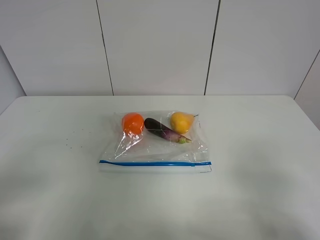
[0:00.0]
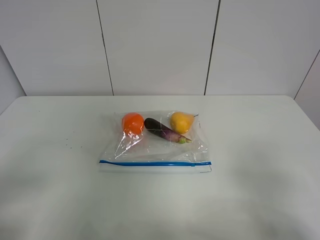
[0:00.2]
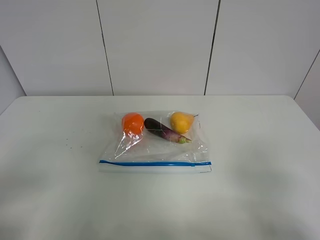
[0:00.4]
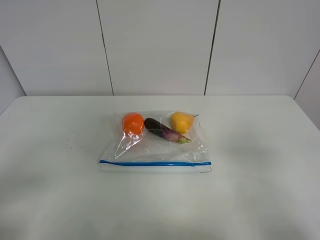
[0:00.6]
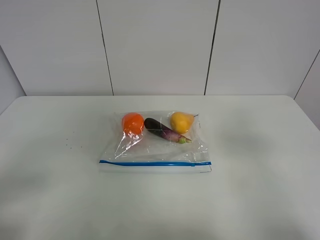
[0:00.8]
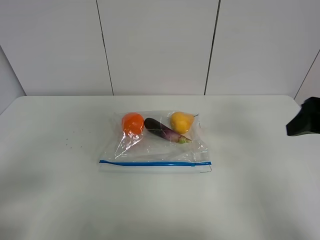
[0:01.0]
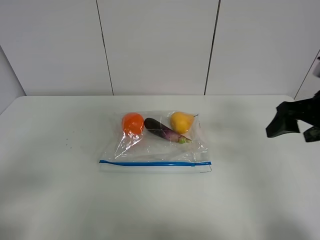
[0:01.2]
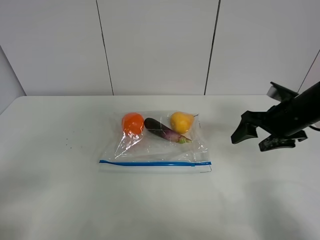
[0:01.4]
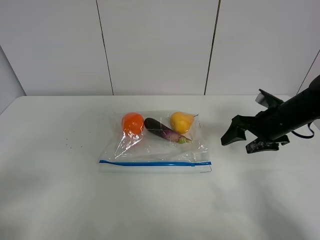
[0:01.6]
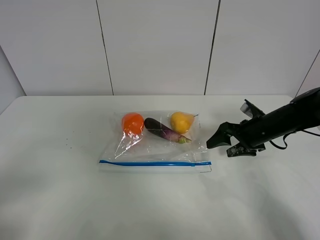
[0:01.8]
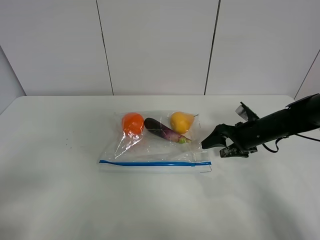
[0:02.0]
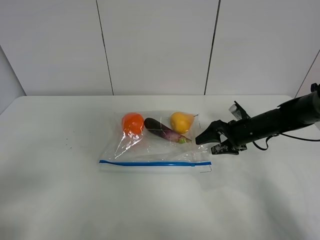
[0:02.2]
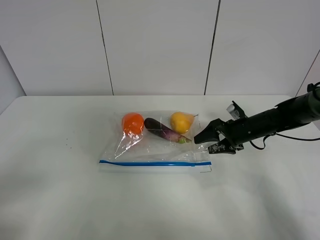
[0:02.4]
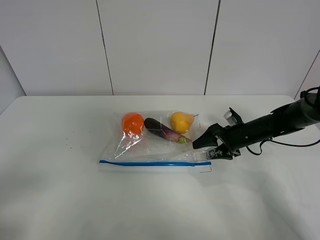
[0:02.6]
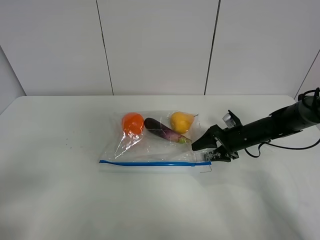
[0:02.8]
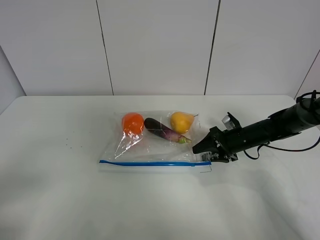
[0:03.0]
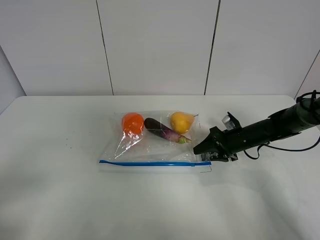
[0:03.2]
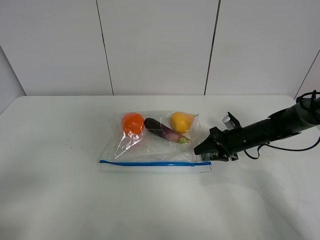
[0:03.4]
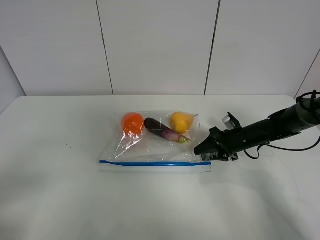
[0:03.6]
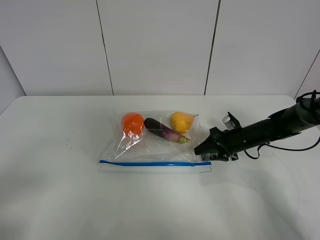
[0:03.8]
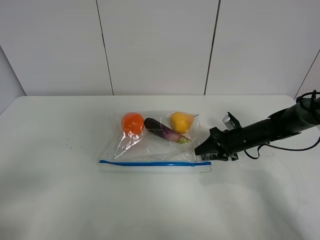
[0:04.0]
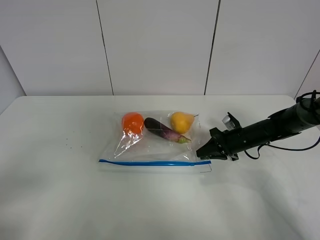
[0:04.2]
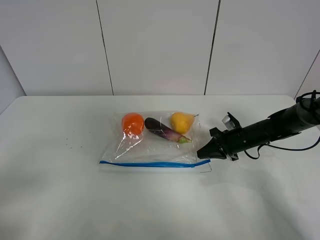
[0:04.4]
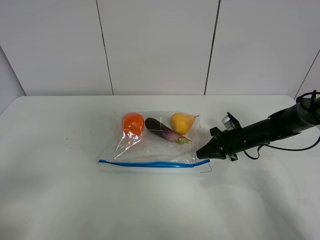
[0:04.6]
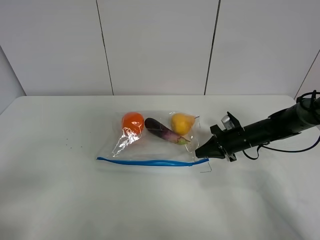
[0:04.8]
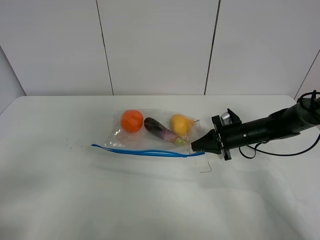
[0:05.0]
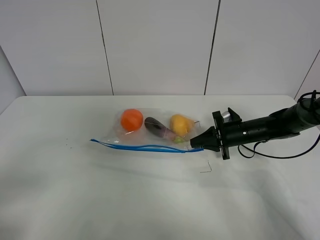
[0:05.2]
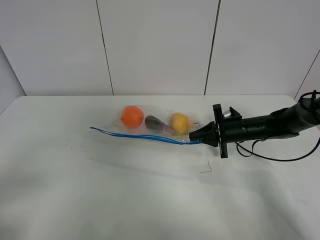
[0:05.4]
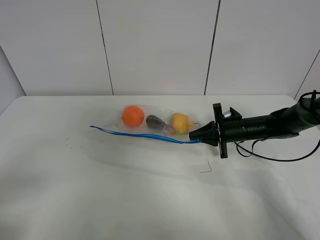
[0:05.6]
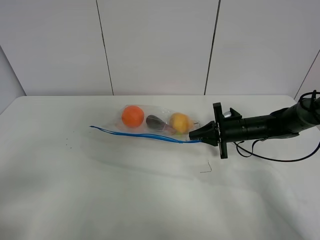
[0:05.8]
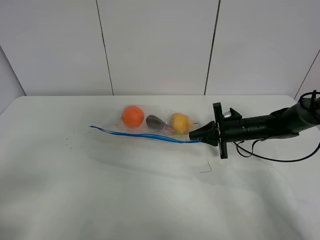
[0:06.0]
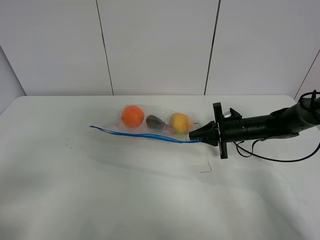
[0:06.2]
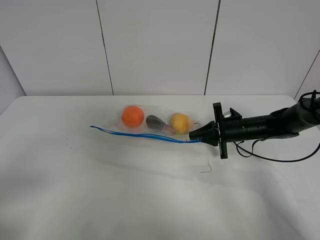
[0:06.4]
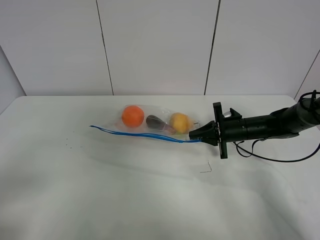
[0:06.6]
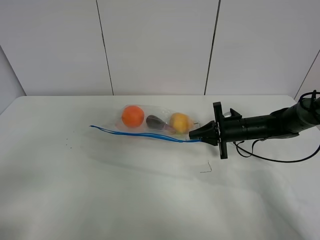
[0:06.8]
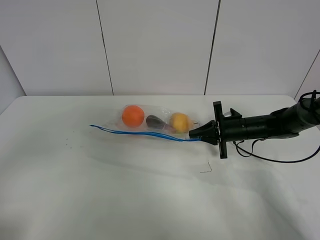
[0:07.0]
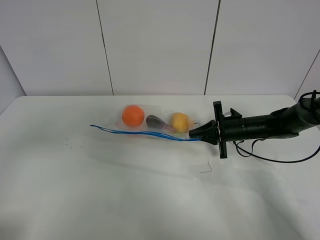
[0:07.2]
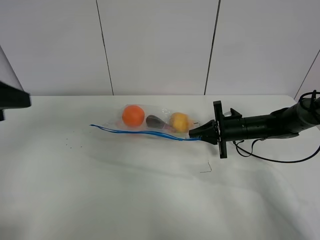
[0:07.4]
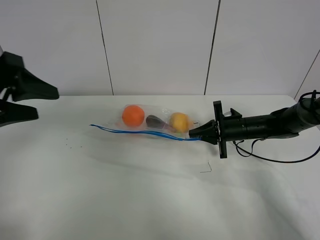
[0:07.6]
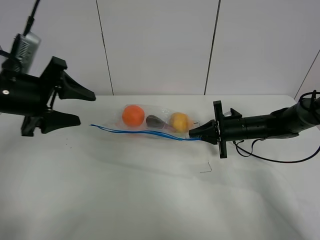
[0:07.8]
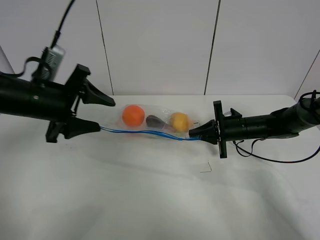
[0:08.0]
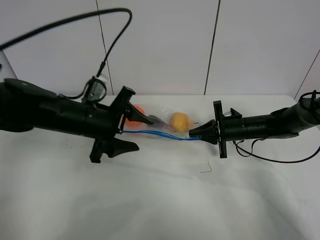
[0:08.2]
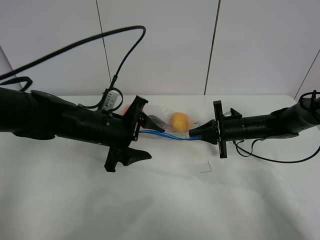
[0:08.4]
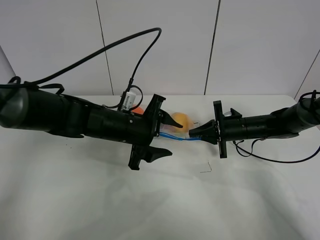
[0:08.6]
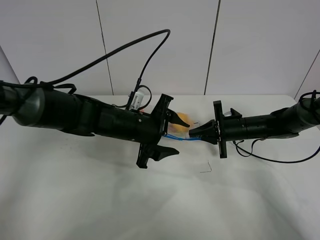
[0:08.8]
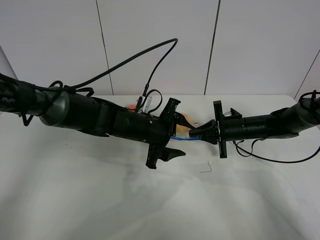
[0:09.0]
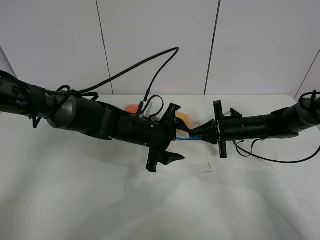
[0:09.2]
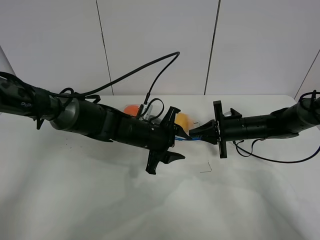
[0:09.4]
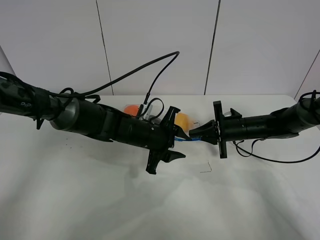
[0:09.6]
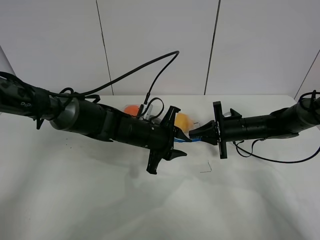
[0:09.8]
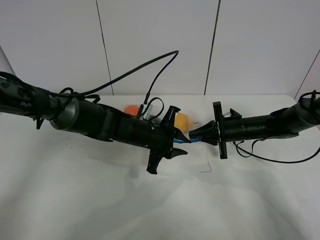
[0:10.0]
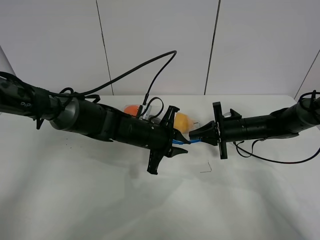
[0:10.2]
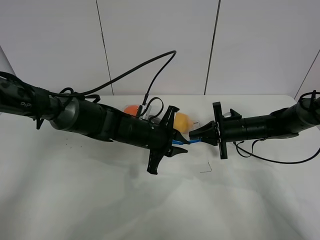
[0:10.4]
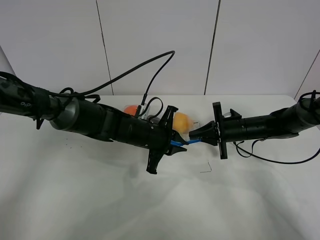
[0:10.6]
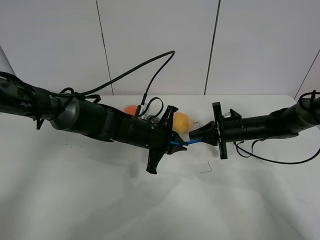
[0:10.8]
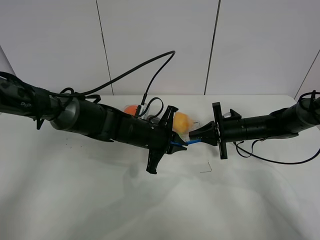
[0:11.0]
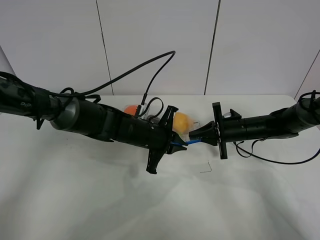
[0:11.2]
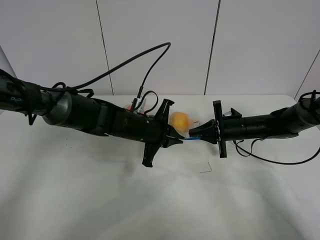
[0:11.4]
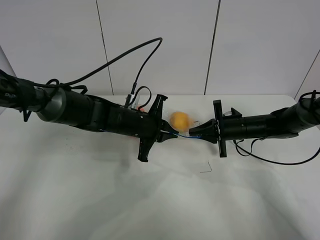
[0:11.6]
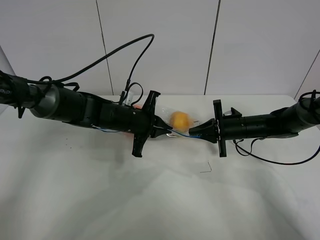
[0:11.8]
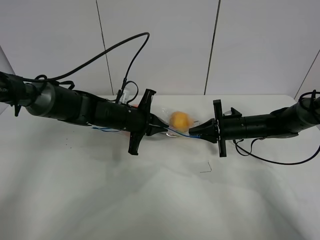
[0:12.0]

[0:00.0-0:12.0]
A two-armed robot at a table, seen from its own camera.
Step, 0:00.0 to 0:04.4: Grasp the fruit bag with right gripper.
Step, 0:04.6 to 0:05.6: Lift the fruit bag with your right gripper.
0:00.0 to 0:01.6: The right gripper heads forward, covering some 30 cm.
0:01.6 to 0:03.0: The right gripper heads downward, covering about 10 cm.
0:03.0 to 0:04.4: The right gripper closes.
0:06.0 to 0:07.6: The left gripper shifts about 20 cm forward.
0:07.6 to 0:09.0: The left gripper is displaced to the right, downward and forward by some 30 cm.
0:09.0 to 0:10.4: The left gripper closes.
0:10.4 to 0:12.0: The left gripper goes about 5 cm to the left.

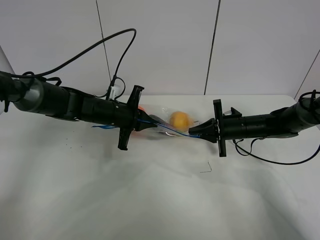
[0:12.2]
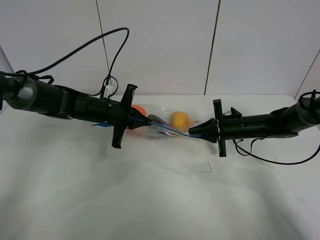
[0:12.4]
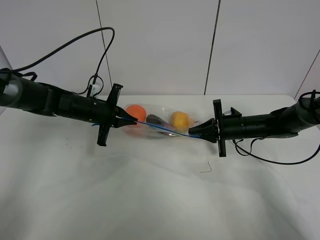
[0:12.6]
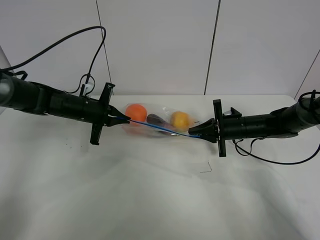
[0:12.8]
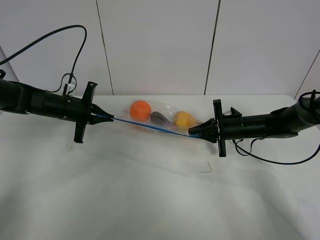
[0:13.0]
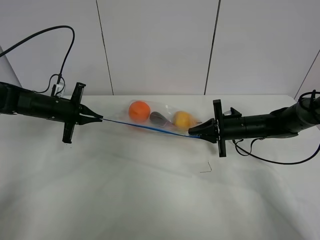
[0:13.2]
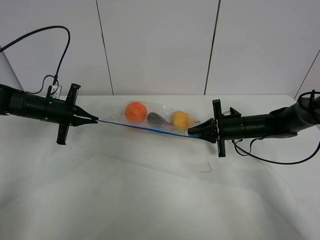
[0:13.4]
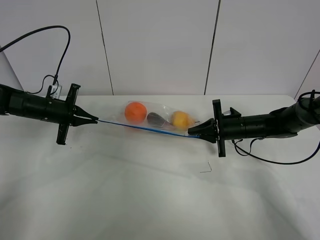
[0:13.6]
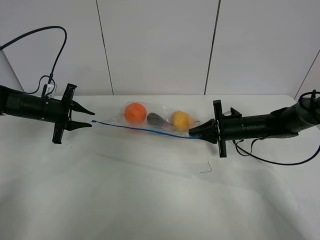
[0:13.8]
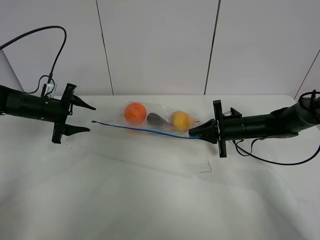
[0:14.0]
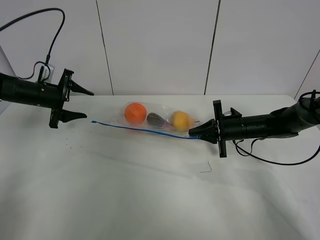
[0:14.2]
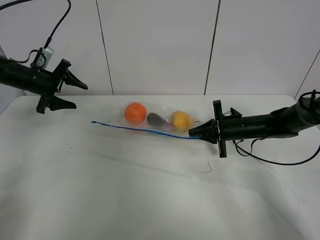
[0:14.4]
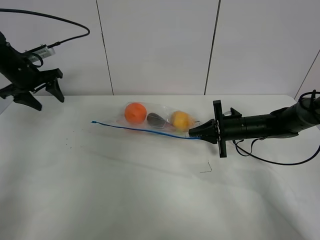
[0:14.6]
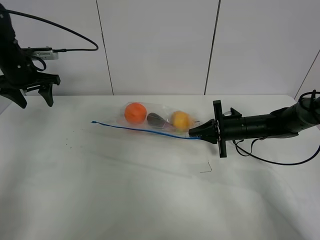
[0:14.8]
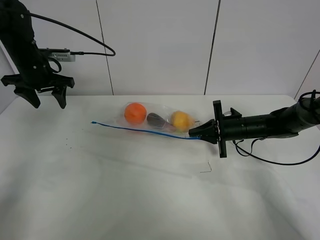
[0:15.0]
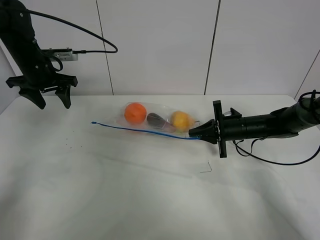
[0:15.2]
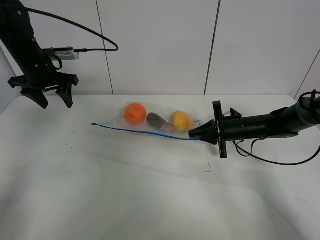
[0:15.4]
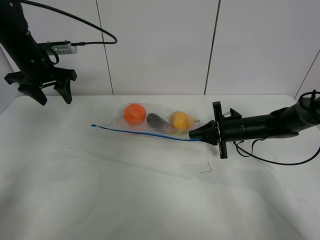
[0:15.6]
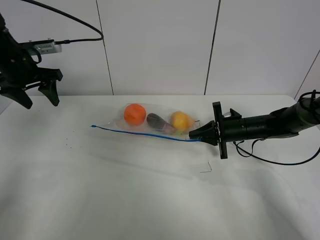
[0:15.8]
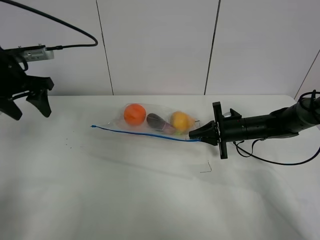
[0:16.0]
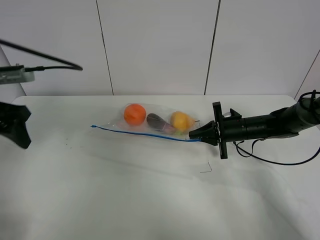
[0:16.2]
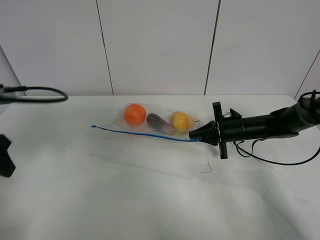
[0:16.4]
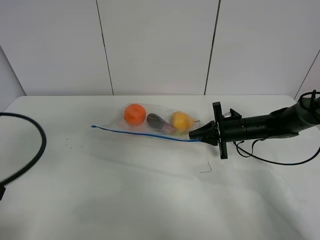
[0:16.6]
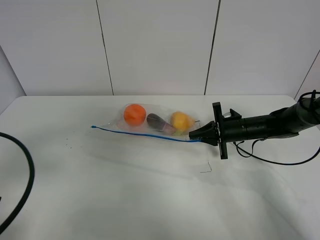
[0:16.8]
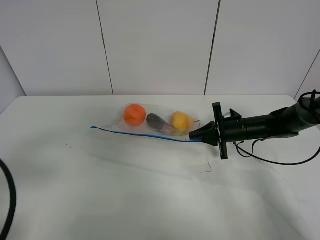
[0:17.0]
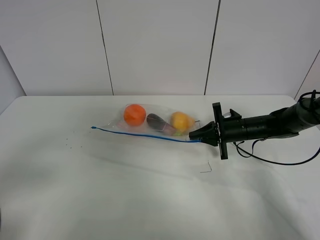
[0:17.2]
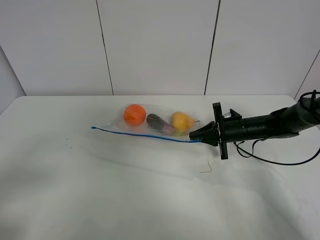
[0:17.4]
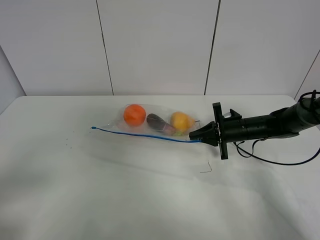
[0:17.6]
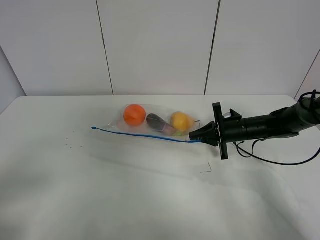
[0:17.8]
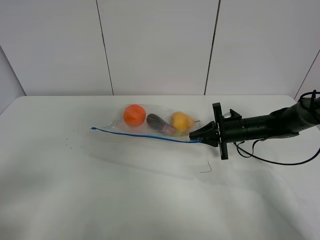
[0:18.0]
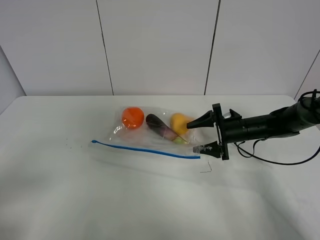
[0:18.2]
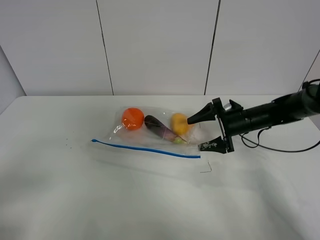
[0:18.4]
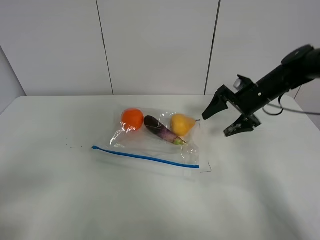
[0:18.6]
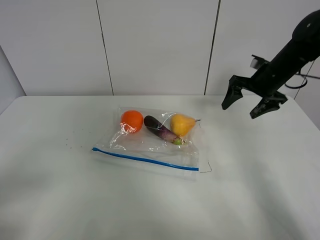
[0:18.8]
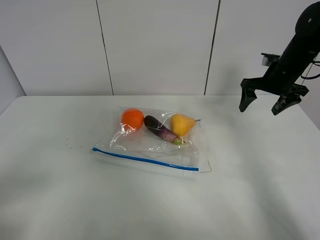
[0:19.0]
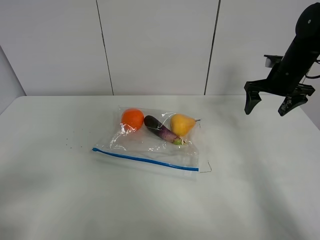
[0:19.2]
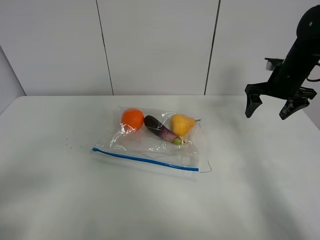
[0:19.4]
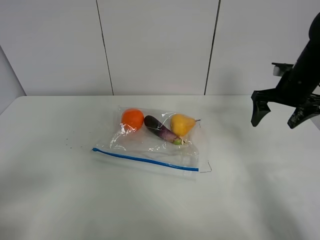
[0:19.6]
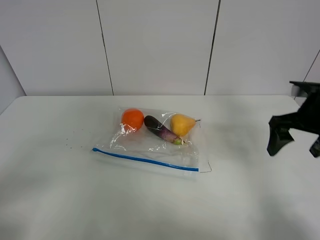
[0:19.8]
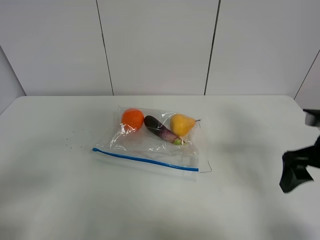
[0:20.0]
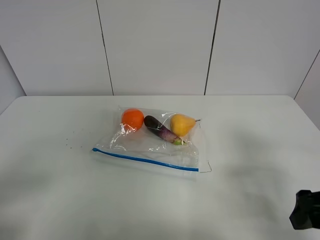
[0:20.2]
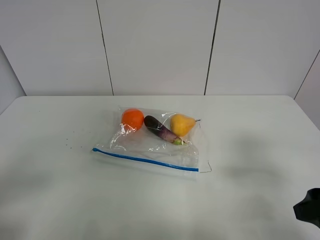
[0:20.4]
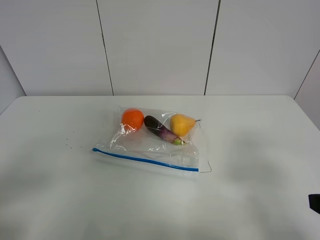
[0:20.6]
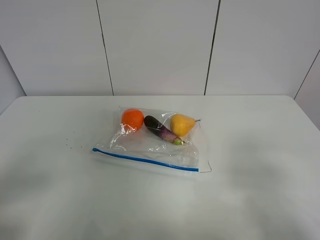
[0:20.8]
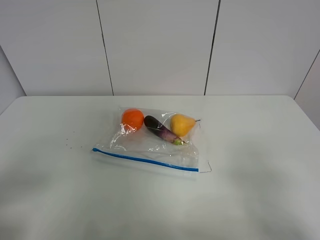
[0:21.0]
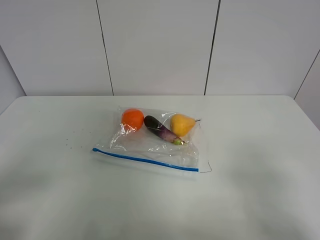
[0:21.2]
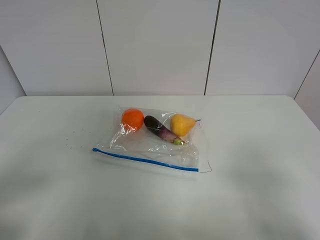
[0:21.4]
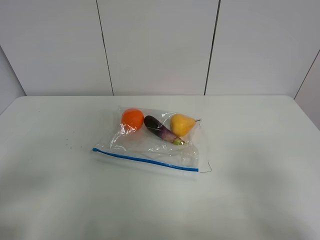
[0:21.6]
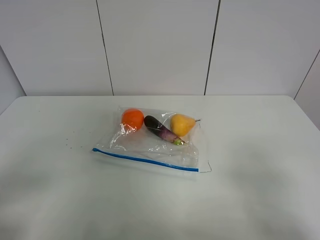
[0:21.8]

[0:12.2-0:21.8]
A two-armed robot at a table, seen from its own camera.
0:12.2 to 0:13.8: The left gripper travels to the left by some 20 cm, and opens its fingers.
0:13.8 to 0:15.4: The left gripper shifts some 15 cm upward.
0:15.4 to 0:17.0: The left gripper is displaced backward by roughly 35 cm.
0:17.0 to 0:18.6: The right gripper goes about 10 cm upward, and opens up. The left gripper is displaced backward by about 5 cm.
0:18.6 to 0:20.2: The right gripper moves backward, some 30 cm.
0:20.2 to 0:21.8: The right gripper moves backward and upward, some 15 cm.
